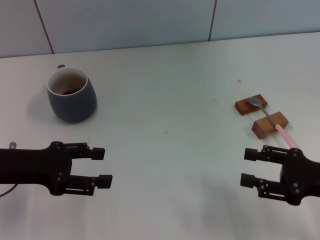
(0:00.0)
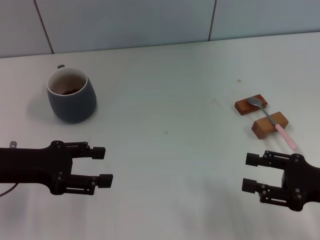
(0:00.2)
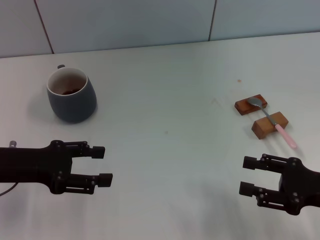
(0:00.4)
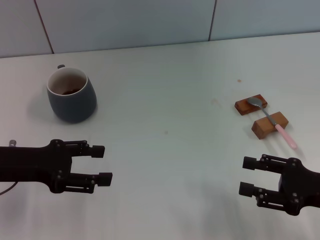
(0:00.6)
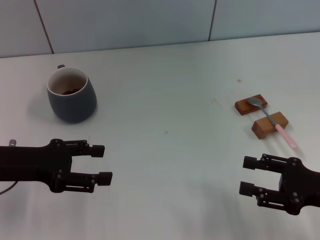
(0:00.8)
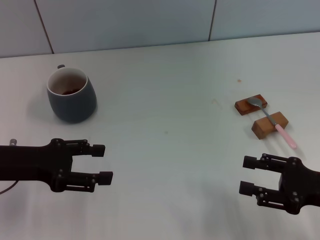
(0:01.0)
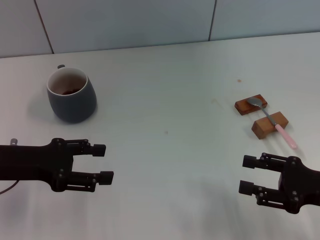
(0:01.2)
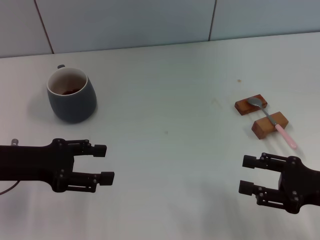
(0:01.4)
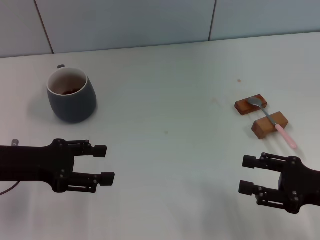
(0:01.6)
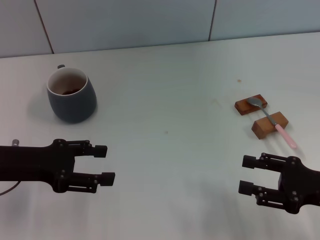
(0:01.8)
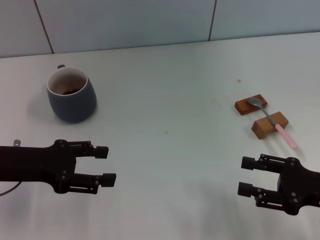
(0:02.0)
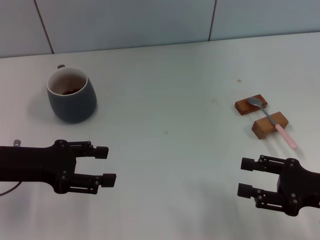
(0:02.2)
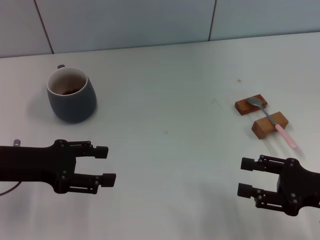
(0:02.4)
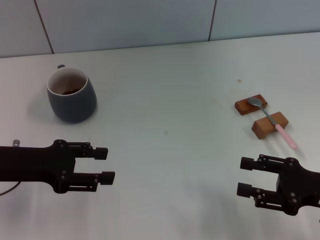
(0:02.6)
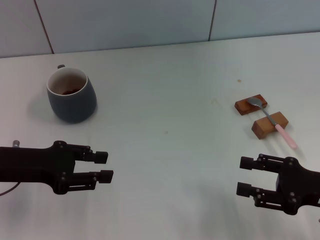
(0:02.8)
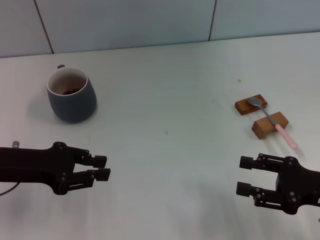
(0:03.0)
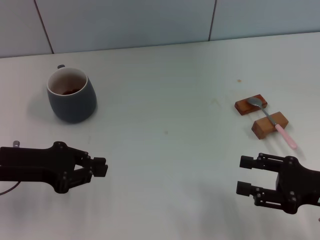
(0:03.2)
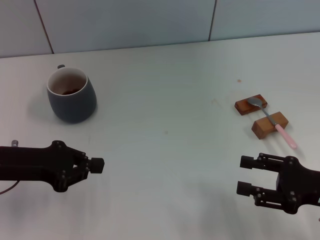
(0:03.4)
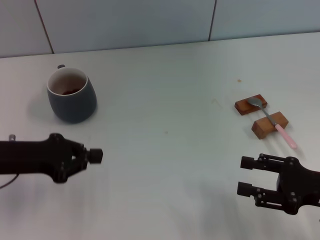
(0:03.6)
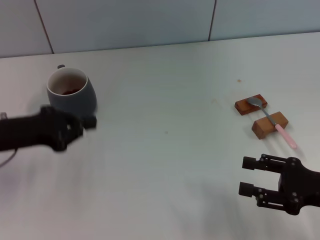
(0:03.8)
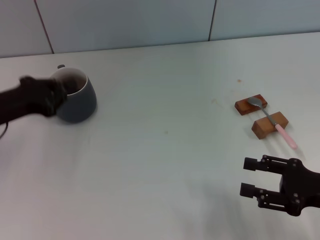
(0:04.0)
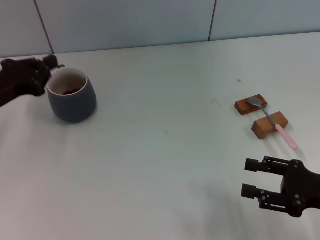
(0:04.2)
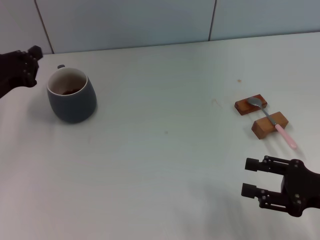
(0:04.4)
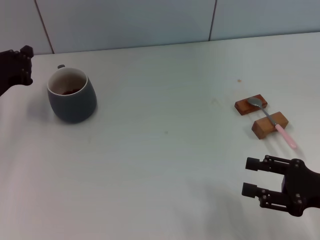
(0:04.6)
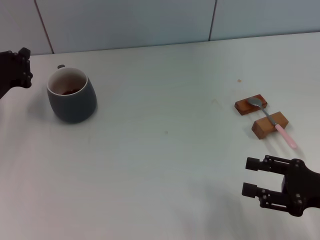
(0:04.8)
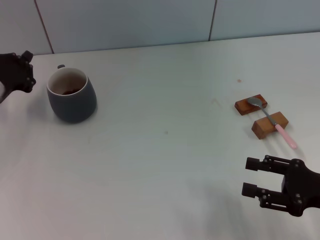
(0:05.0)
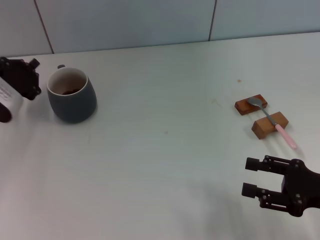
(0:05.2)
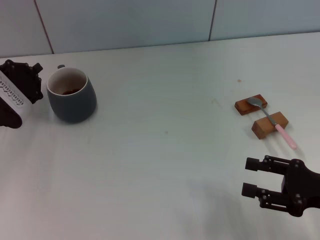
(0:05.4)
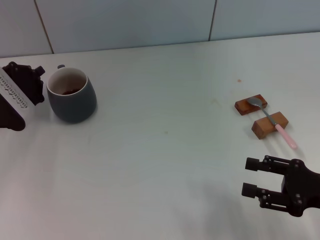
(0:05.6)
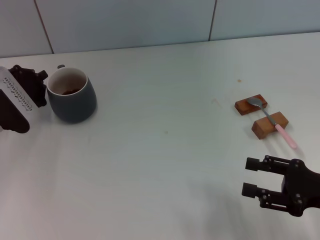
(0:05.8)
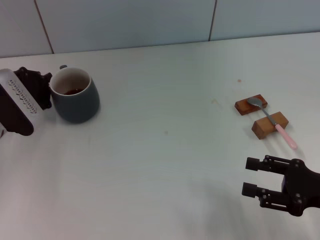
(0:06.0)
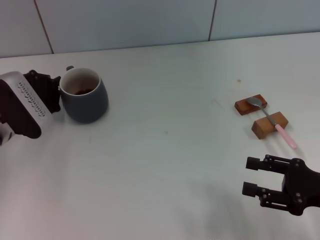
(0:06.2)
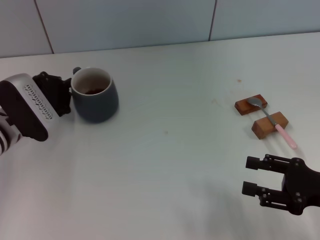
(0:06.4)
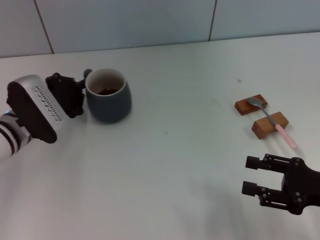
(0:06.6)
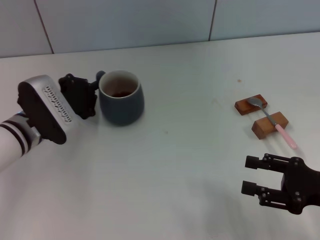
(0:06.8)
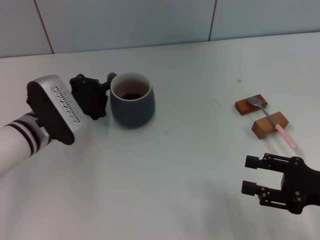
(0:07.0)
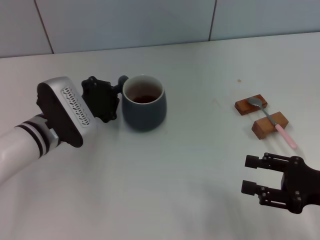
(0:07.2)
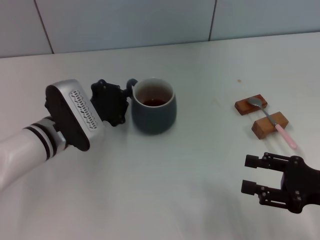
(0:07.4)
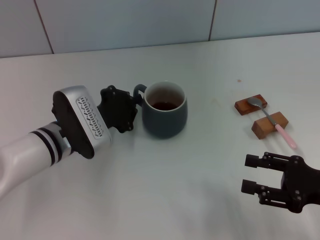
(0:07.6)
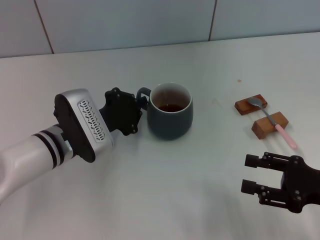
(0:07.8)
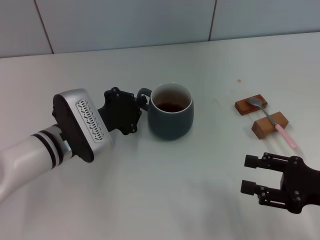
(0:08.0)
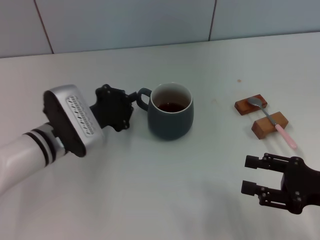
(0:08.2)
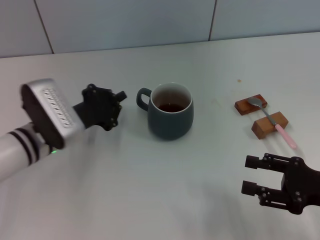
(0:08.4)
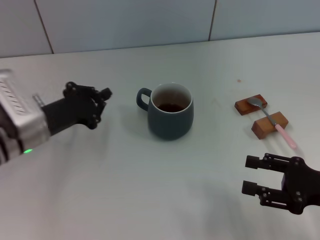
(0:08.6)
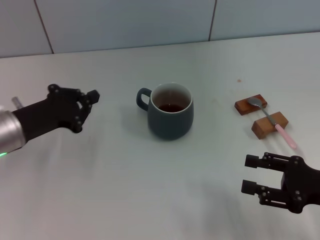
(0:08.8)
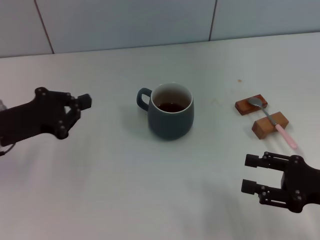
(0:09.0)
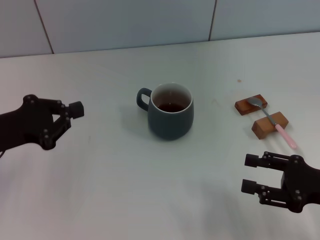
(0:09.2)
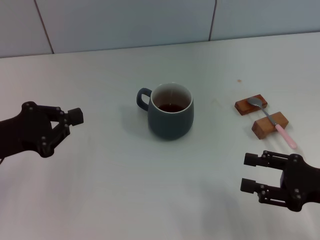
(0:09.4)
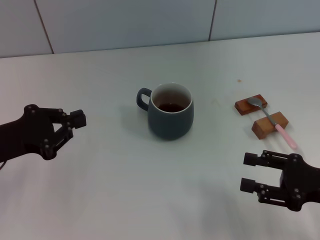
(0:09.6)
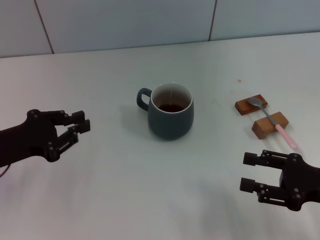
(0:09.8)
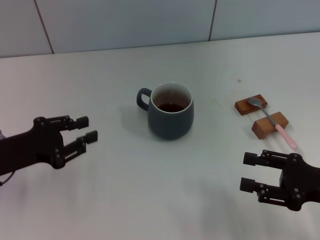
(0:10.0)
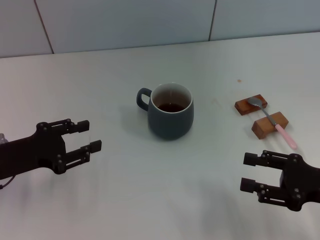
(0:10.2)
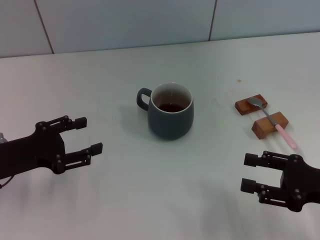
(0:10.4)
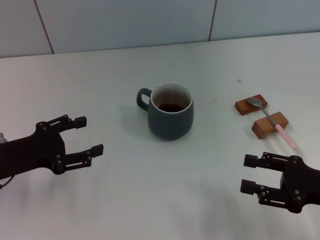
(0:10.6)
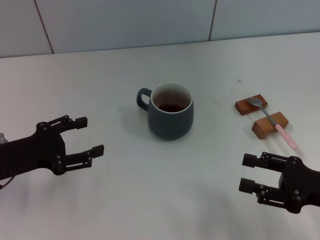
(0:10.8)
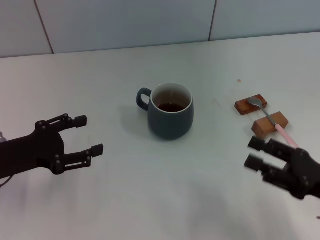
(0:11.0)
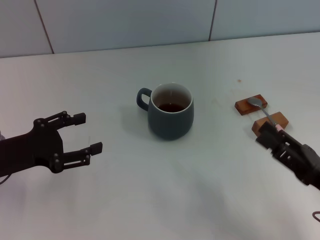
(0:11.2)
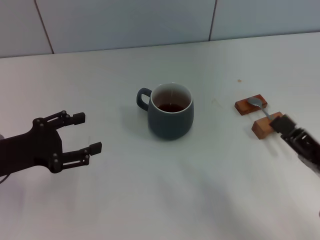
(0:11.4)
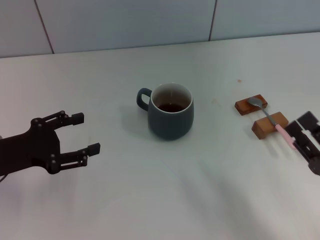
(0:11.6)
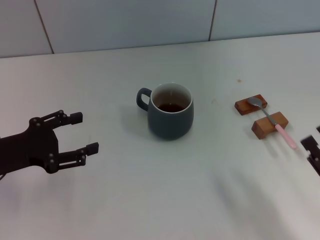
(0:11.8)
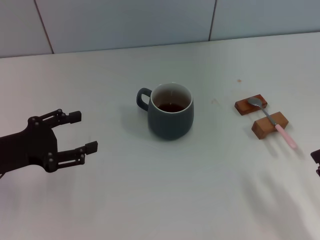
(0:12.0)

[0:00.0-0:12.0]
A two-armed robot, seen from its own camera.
Task of the whole recording: Move the grey cup to the center, lift the pink spoon, stir it three times in the cup, and put the spoon into the cup.
Step, 0:00.0 to 0:08.2: Move the cup with coffee to the center of view with the left gripper.
0:00.0 to 0:01.6: The two grippers keep their place.
0:01.6 to 0:03.0: The left gripper closes up.
0:03.0 to 0:04.4: The left gripper goes roughly 5 cm forward, and closes.
0:04.4 to 0:06.0: The left gripper moves approximately 5 cm.
0:06.0 to 0:07.6: The left gripper moves to the right, some 10 cm.
0:07.6 to 0:09.0: The left gripper moves to the left and upward, approximately 15 cm.
0:09.0 to 0:10.4: The left gripper opens its fingers.
0:10.4 to 0:12.0: The right gripper moves backward and downward, about 10 cm.

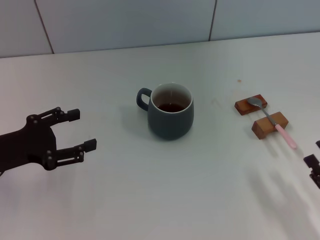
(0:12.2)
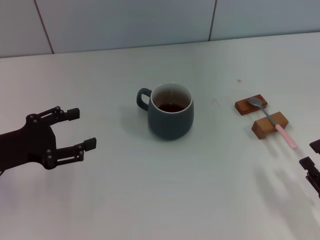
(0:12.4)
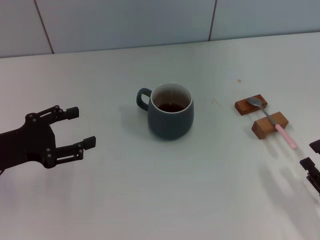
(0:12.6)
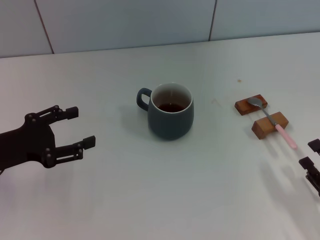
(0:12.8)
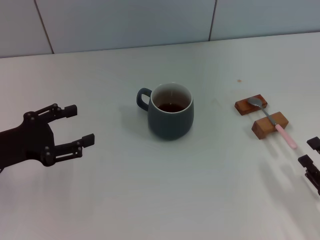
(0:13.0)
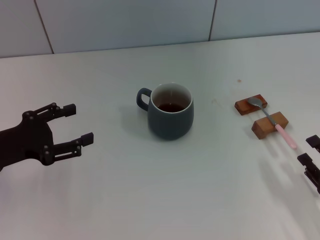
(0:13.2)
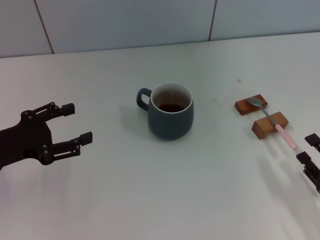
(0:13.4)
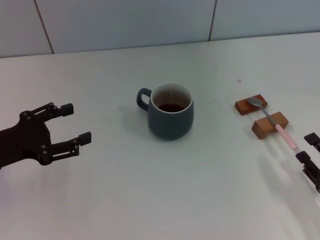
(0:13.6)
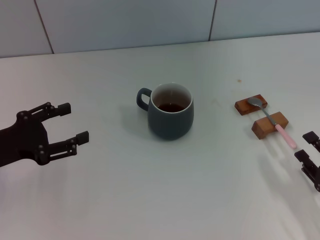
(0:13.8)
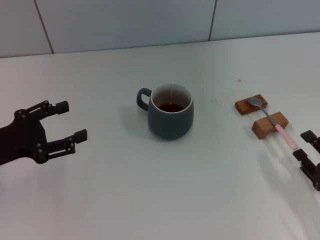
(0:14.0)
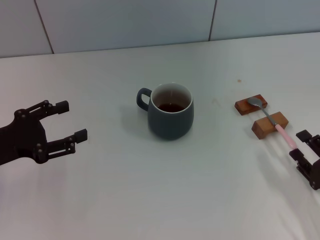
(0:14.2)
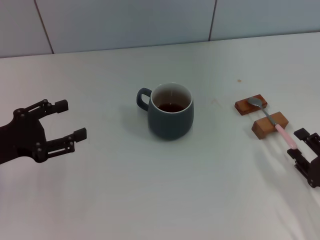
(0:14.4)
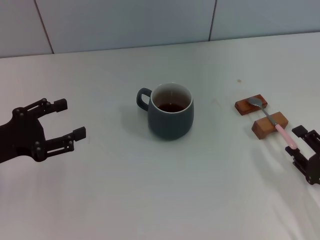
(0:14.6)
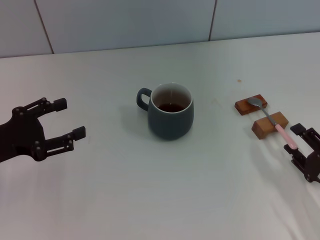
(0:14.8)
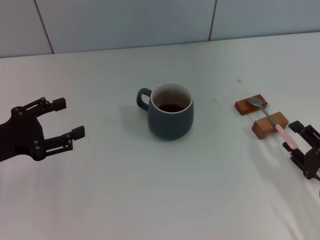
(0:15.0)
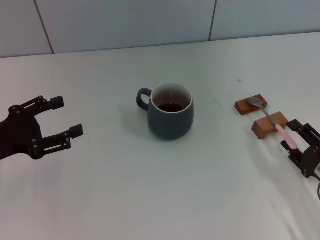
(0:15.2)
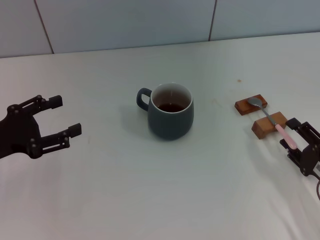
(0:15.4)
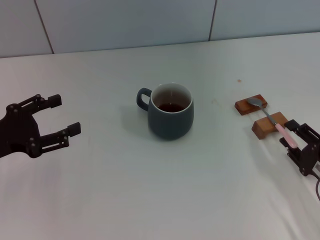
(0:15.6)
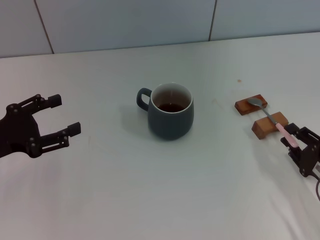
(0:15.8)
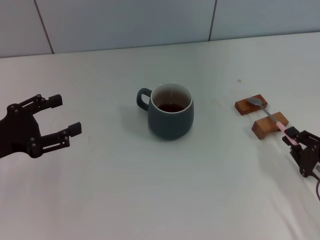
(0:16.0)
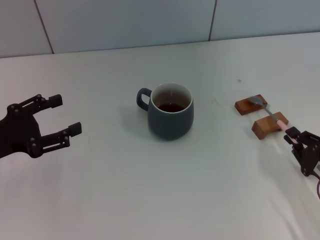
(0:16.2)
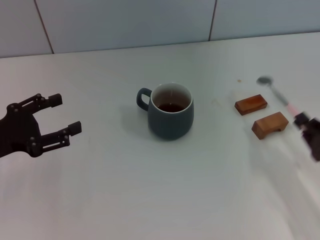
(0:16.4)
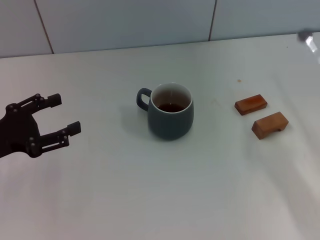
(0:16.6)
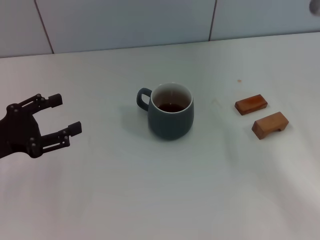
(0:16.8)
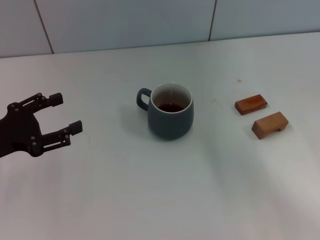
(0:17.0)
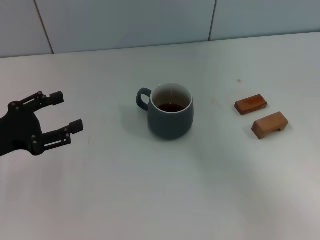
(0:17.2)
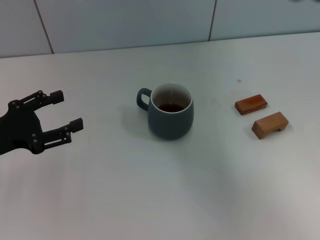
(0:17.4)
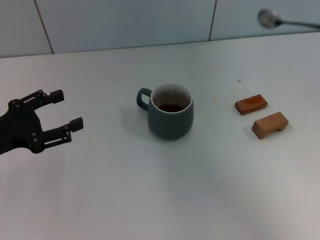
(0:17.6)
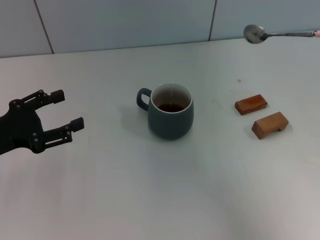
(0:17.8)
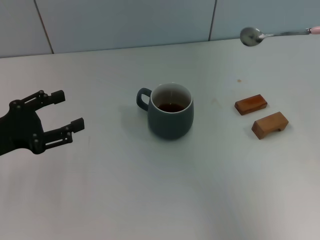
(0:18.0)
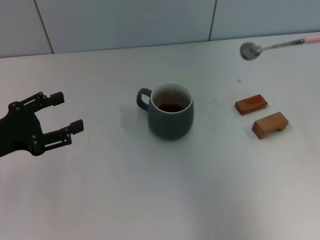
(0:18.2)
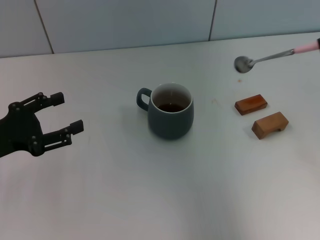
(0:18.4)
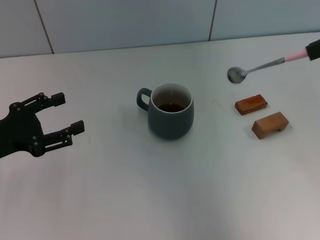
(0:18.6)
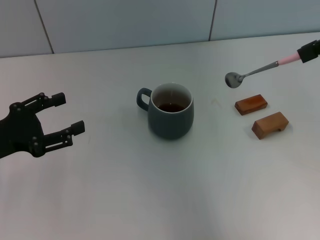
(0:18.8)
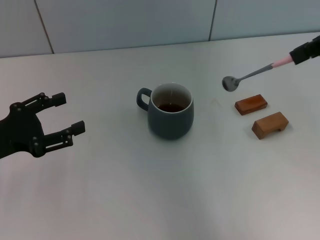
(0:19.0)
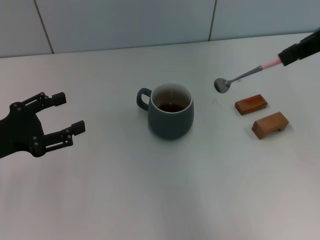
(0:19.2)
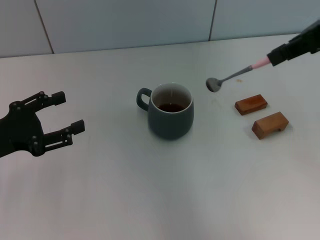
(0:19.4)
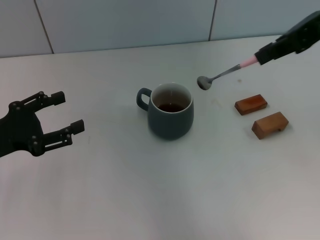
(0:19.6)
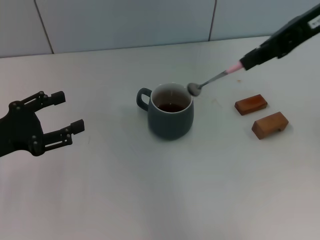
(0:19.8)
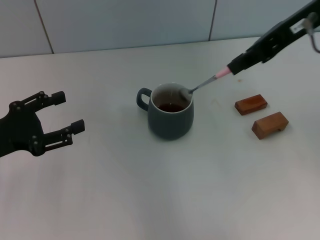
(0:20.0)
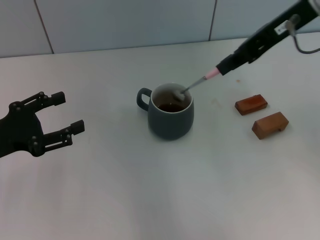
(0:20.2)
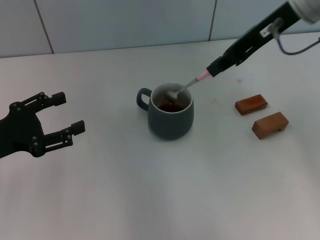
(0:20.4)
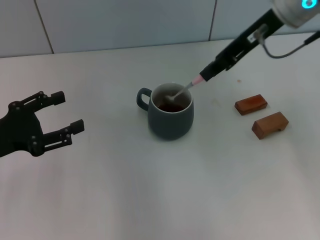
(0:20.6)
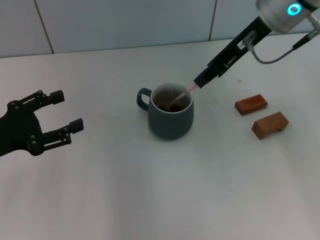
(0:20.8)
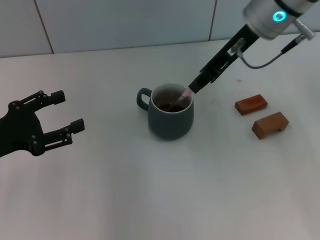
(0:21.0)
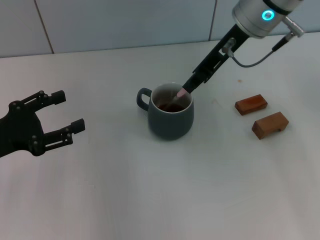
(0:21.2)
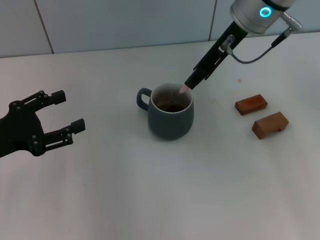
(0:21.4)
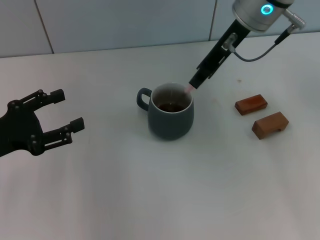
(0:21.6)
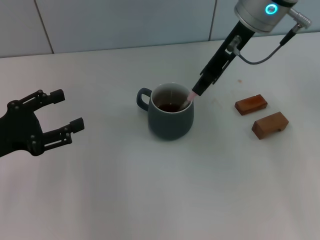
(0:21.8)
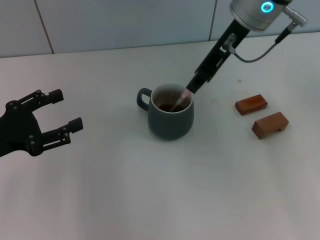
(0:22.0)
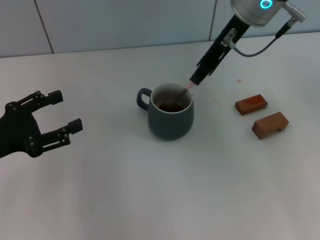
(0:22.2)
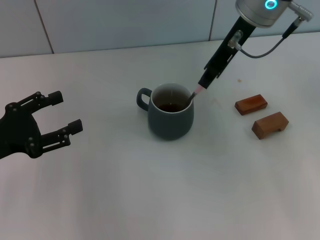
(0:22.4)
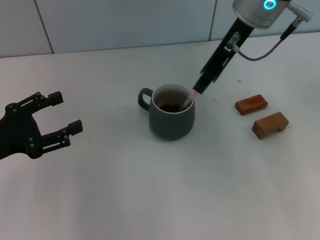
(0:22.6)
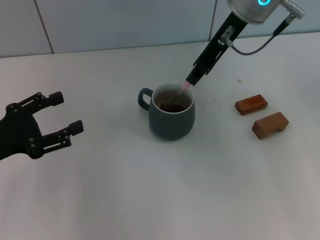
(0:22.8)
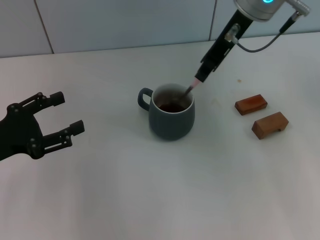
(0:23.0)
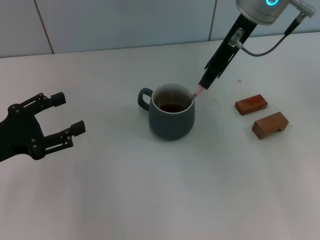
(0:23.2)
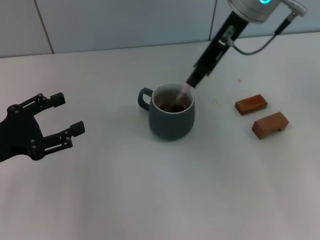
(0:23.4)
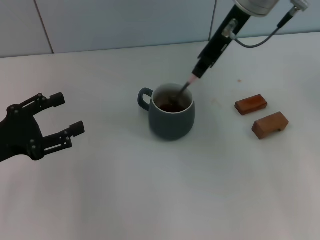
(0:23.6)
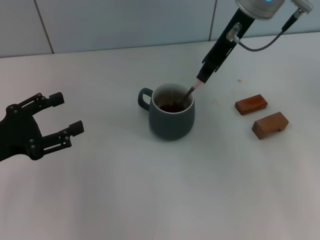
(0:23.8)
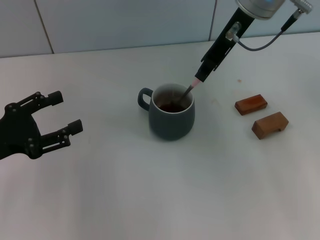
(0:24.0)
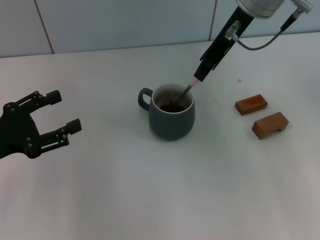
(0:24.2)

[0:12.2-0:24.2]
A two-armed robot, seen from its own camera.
Task of the whole recording: Move the grey cup to the center, lift the pink spoon, stir it three times in the cup, and put the spoon into the cup.
Step, 0:12.2 to 0:16.4: Pick up the spoon with the right gripper.
0:12.2 to 0:13.8: The grippers stay close to where they were, moving slightly.
0:13.8 to 0:15.2: There are only small adjustments of the grippers.
0:15.2 to 0:16.6: The right gripper ends up some 5 cm from where it was, and closes.
0:16.6 to 0:18.2: The right gripper goes about 30 cm upward.
0:18.2 to 0:19.8: The right gripper heads to the left and forward, covering about 15 cm.
0:19.8 to 0:21.2: The right gripper travels to the left, forward and downward by roughly 15 cm.
0:21.2 to 0:24.2: There are only small adjustments of the grippers.
